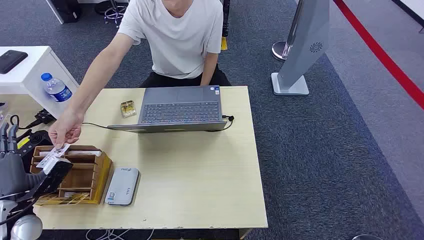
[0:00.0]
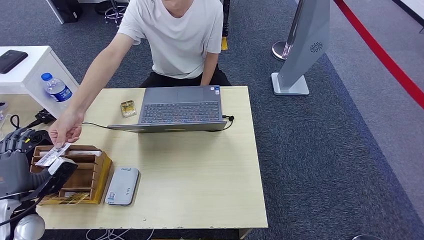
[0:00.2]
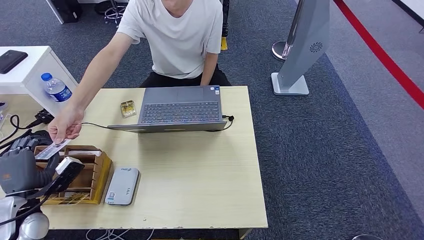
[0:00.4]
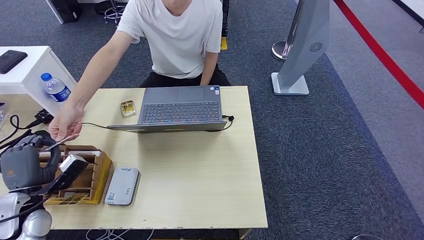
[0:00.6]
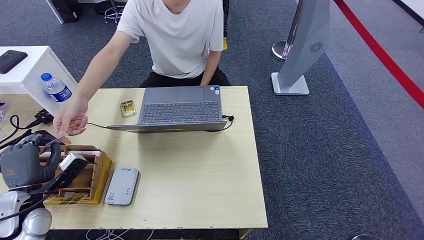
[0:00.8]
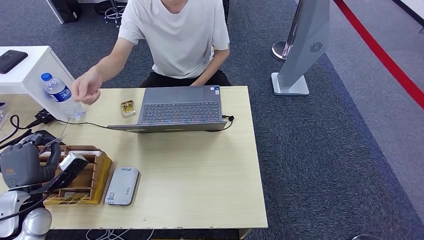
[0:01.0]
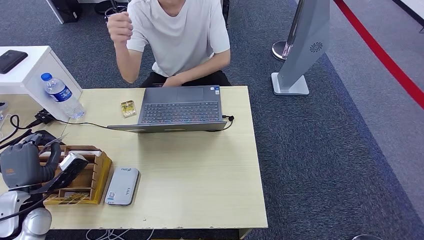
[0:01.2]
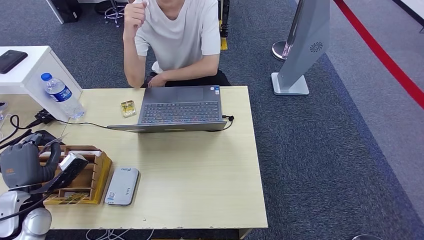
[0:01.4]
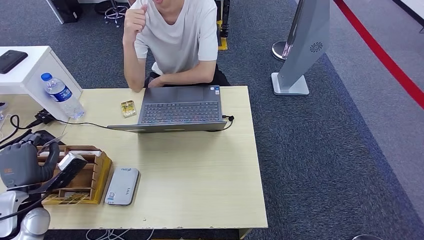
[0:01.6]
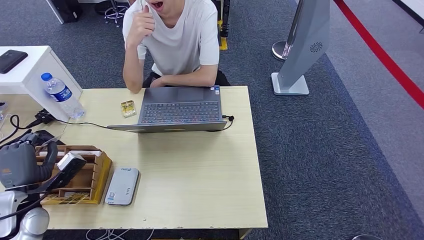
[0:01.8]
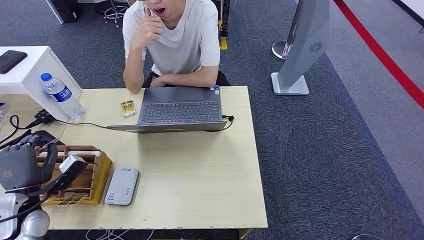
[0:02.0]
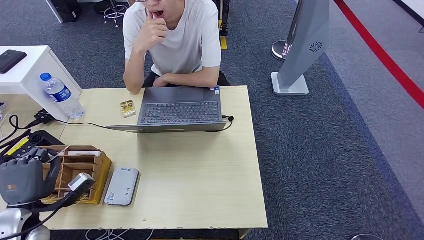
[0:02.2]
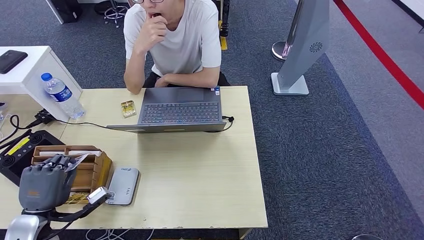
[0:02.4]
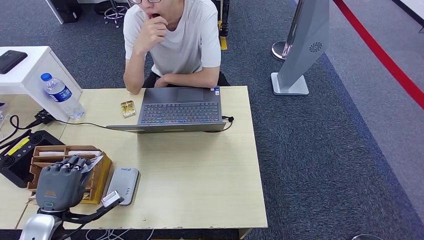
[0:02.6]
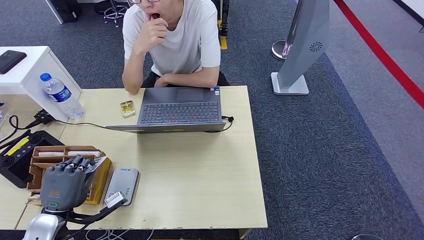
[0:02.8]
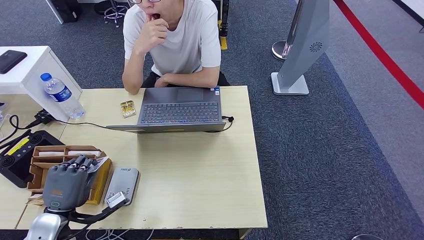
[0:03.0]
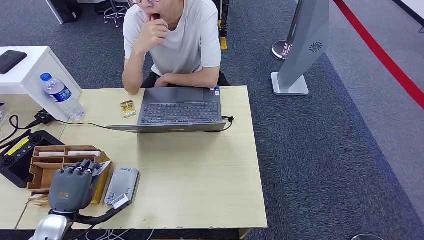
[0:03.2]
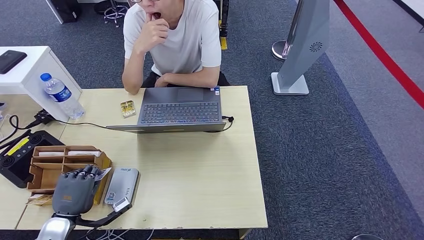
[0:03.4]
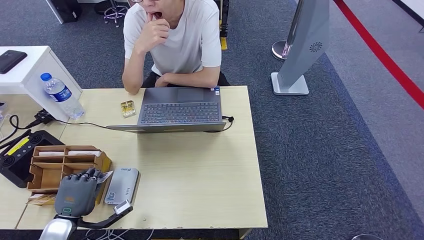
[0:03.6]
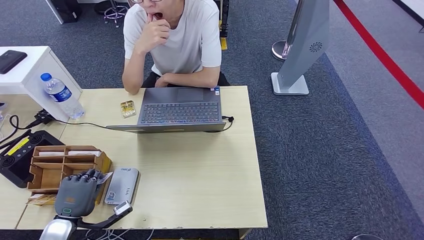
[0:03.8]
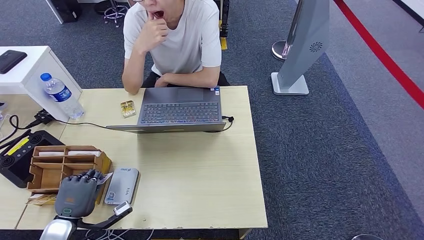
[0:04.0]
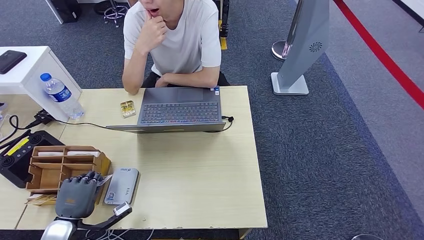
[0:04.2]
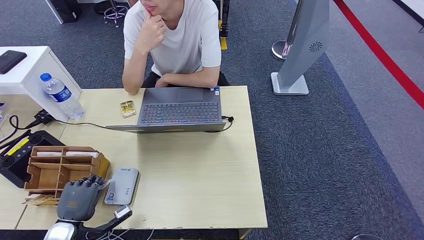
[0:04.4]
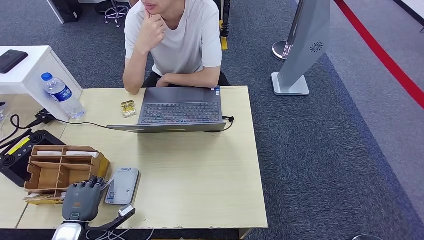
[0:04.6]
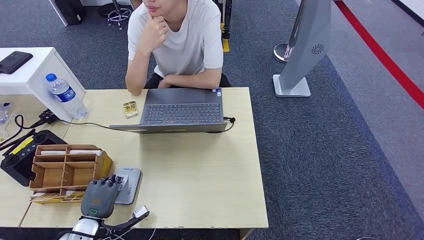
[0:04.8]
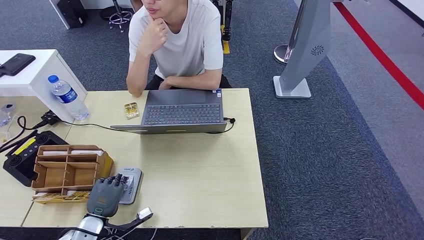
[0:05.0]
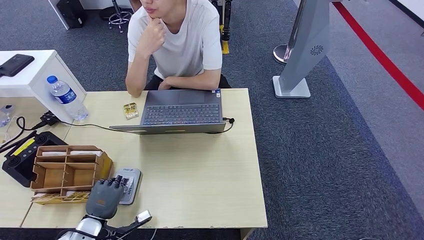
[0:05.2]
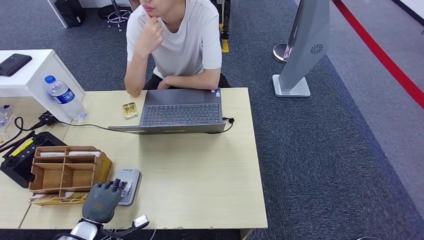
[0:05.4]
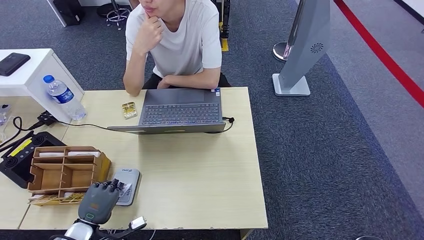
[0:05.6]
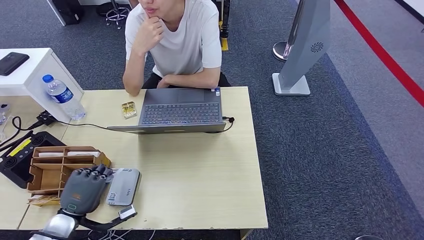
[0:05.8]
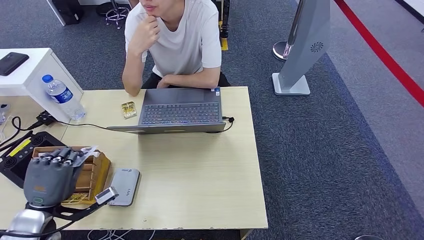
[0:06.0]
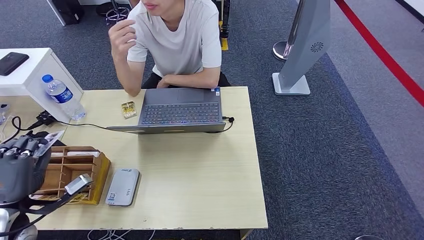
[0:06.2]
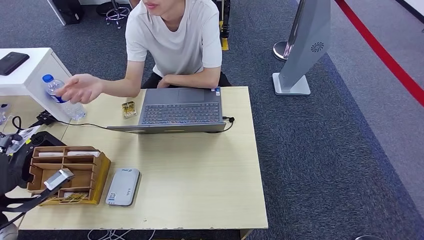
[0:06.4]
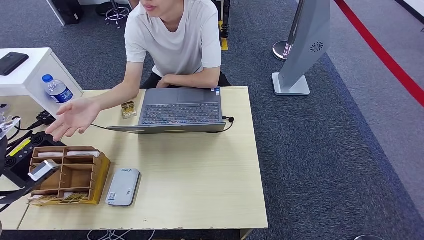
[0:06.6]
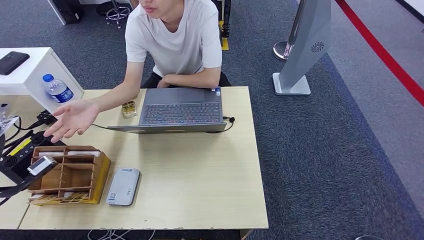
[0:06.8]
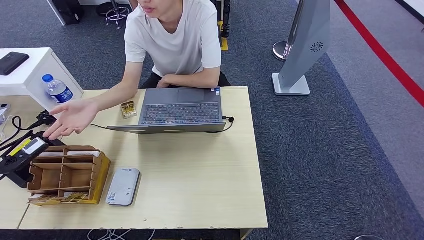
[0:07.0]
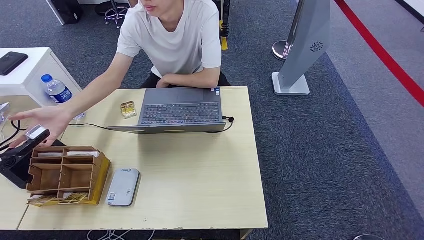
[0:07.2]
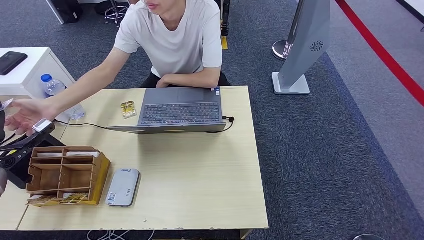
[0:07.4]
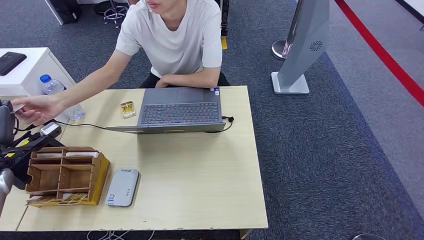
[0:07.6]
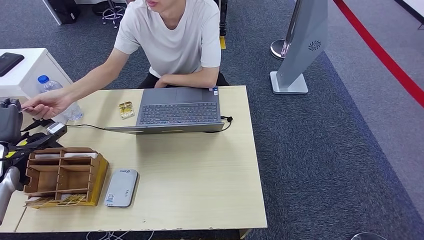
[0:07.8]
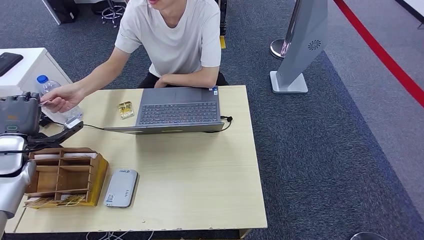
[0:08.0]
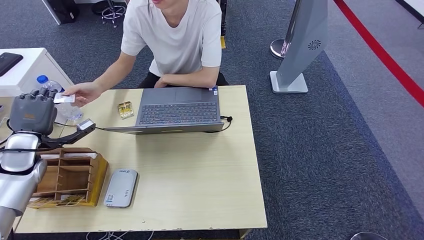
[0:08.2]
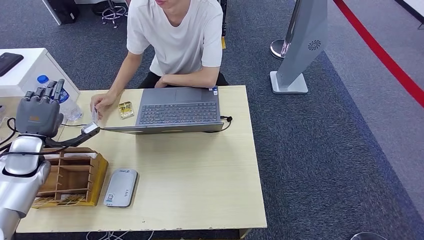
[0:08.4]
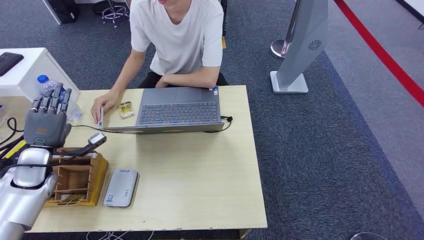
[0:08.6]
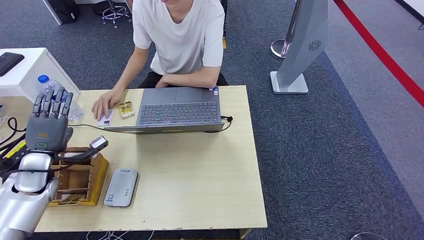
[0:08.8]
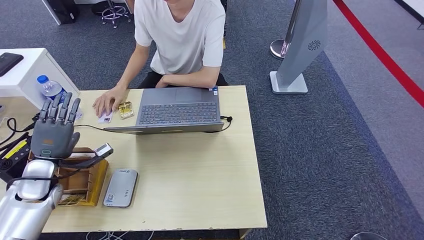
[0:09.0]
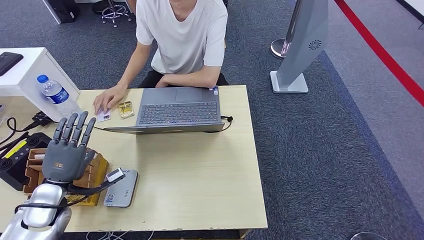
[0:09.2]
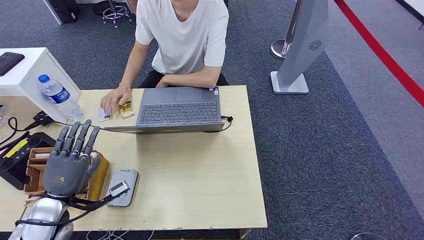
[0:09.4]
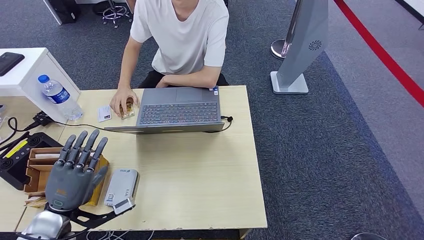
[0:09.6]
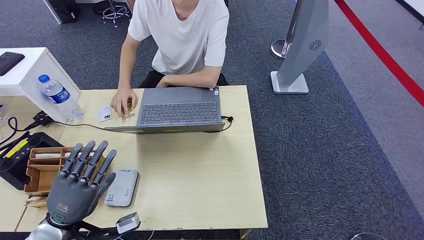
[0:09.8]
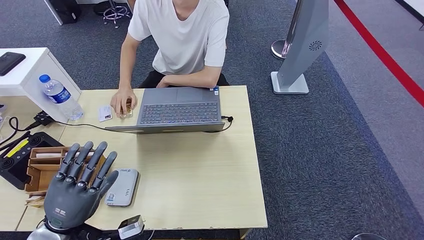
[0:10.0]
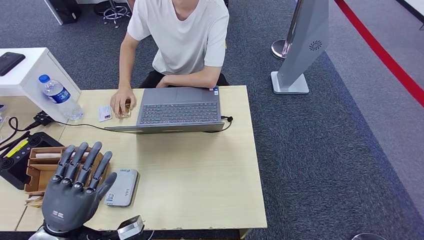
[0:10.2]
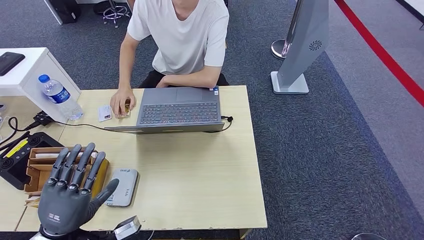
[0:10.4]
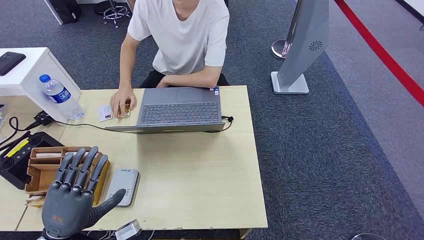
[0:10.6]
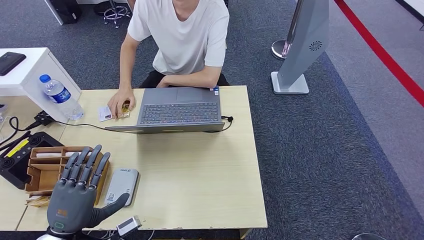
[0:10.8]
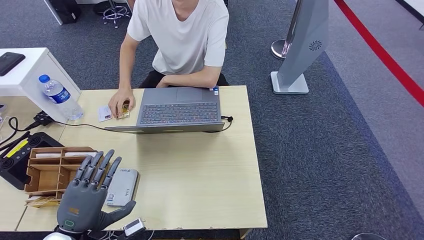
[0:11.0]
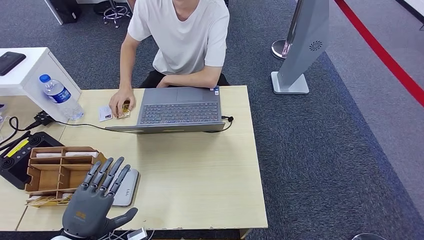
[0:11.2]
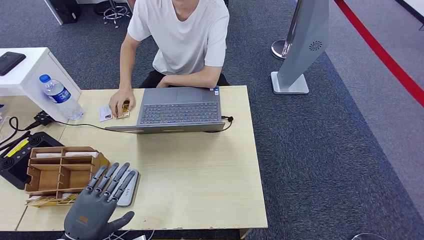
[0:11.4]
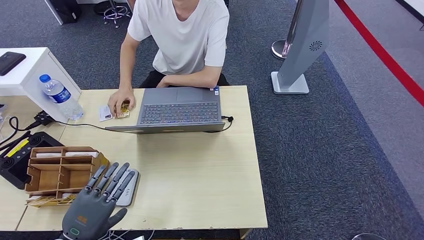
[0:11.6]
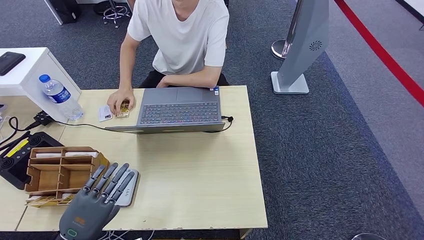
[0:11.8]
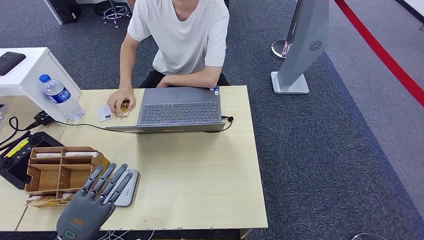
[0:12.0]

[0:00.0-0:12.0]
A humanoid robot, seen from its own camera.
Step, 0.0 to 1.0 s: Take the ID card from the person's hand.
Step, 1.2 to 6.2 s: Place the ID card on the card reader.
Step, 6.4 to 9.8 s: Hand the ID card to the person.
1.6 to 3.0 s: The left hand heads to the right, covering approximately 5 cm.
3.0 to 4.4 s: The left hand goes roughly 5 cm downward.
4.4 to 6.0 s: The left hand travels upward by approximately 10 cm.
6.0 to 7.6 s: The left hand travels to the left, forward and upward by approximately 20 cm.
7.6 to 9.0 s: The left hand heads to the right and downward, covering approximately 10 cm.
9.0 to 10.4 s: The left hand shifts approximately 20 cm backward and to the right.

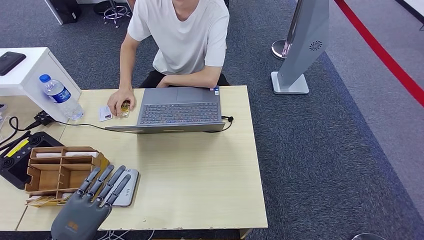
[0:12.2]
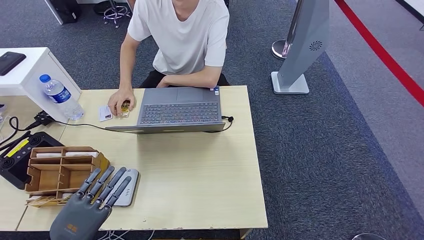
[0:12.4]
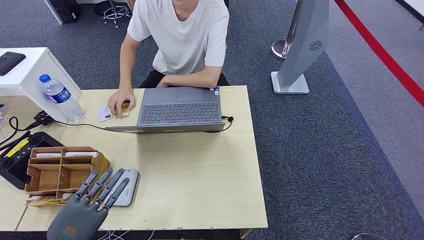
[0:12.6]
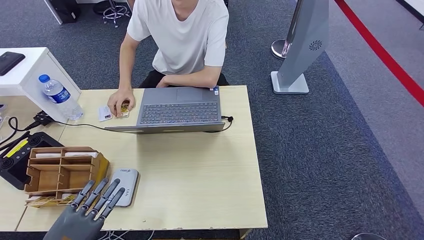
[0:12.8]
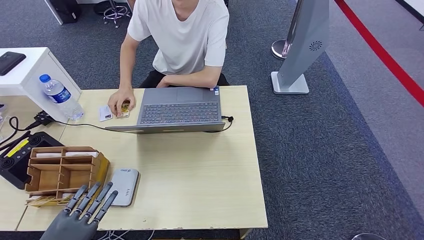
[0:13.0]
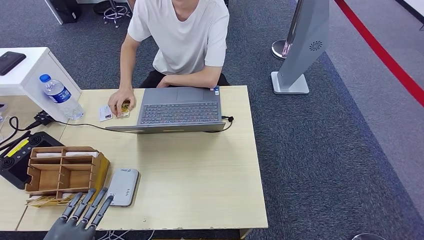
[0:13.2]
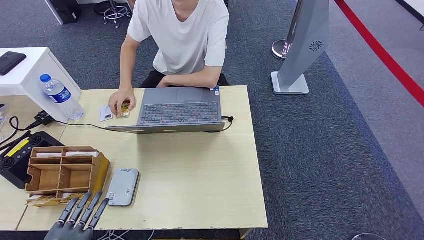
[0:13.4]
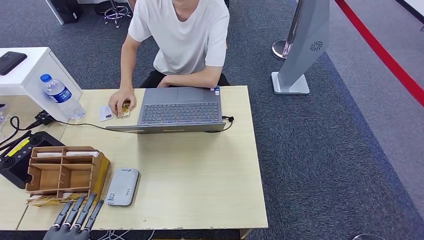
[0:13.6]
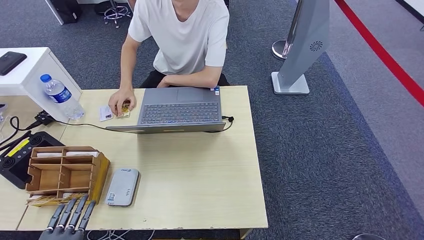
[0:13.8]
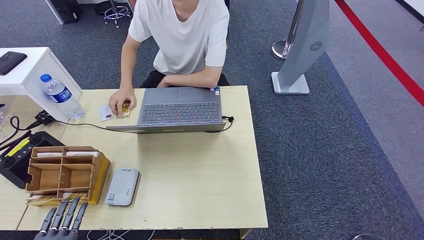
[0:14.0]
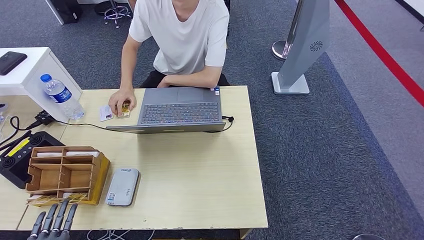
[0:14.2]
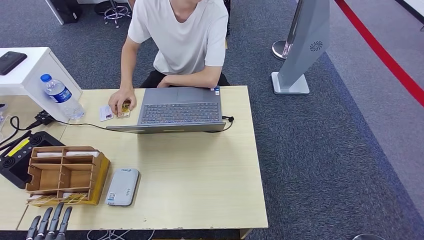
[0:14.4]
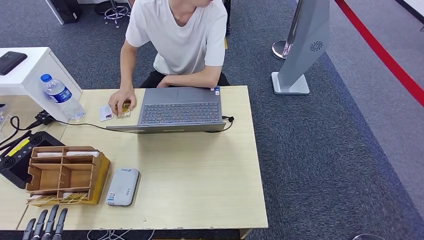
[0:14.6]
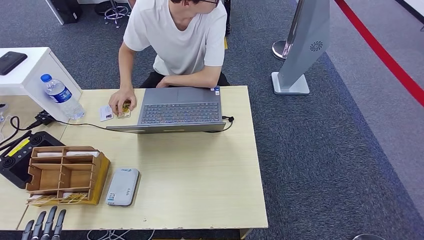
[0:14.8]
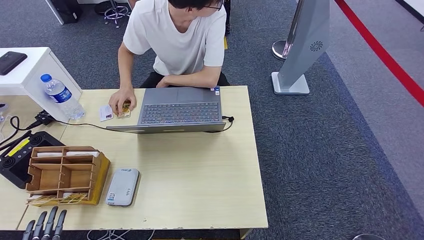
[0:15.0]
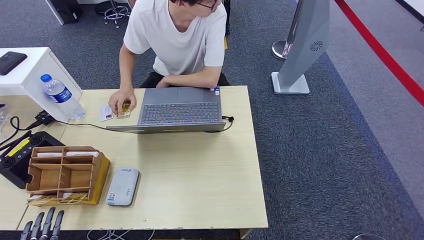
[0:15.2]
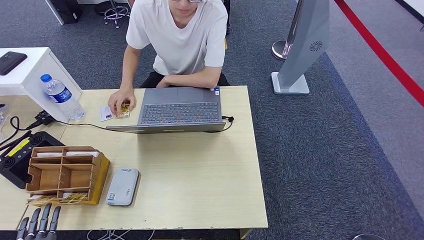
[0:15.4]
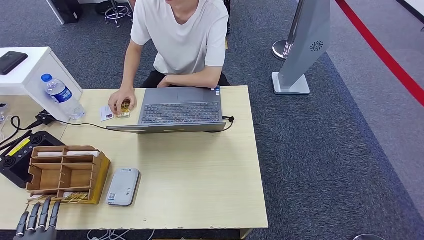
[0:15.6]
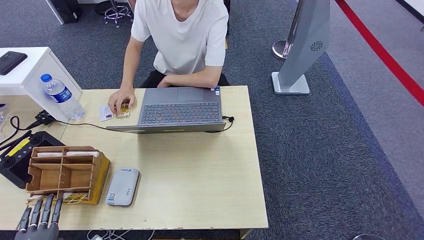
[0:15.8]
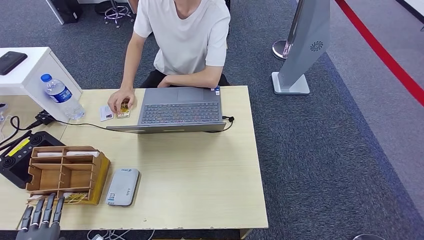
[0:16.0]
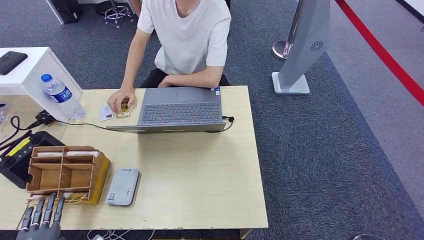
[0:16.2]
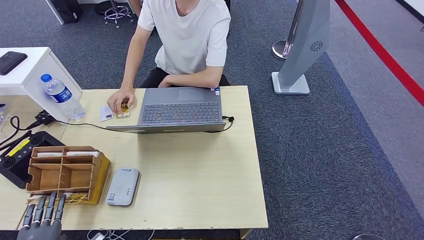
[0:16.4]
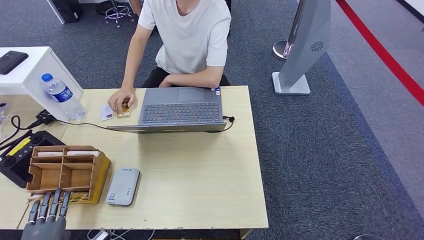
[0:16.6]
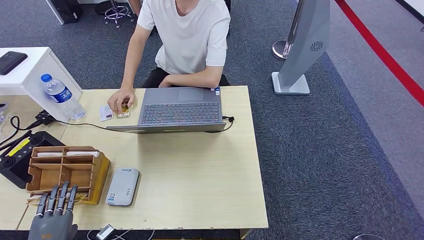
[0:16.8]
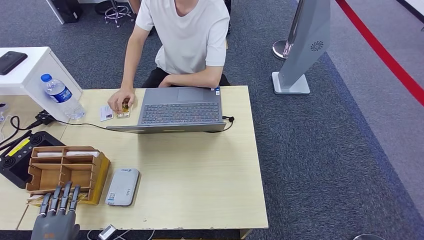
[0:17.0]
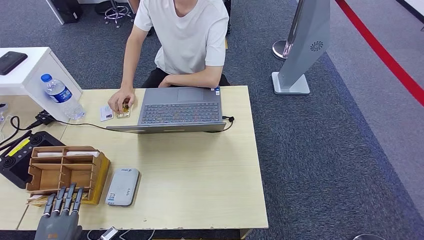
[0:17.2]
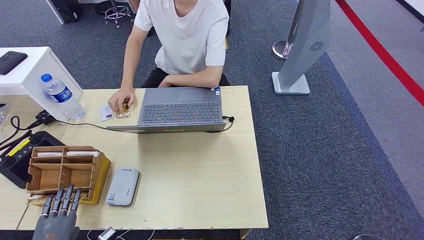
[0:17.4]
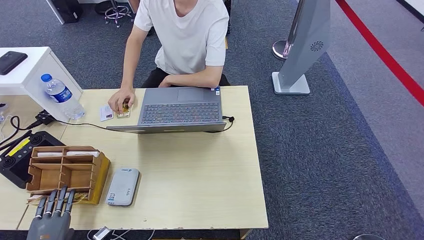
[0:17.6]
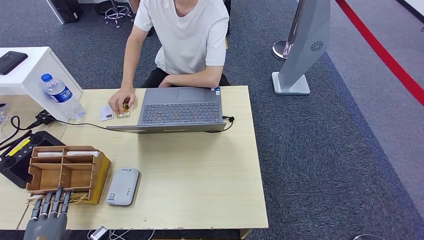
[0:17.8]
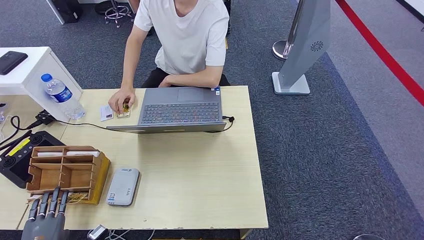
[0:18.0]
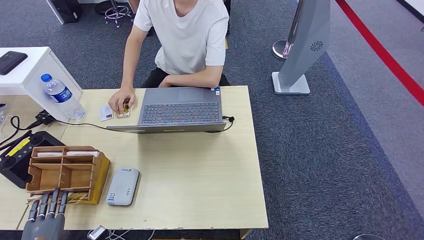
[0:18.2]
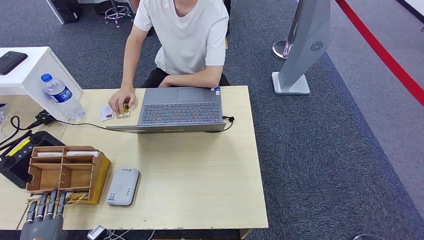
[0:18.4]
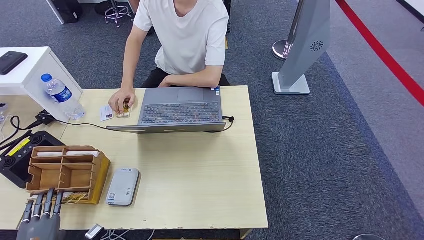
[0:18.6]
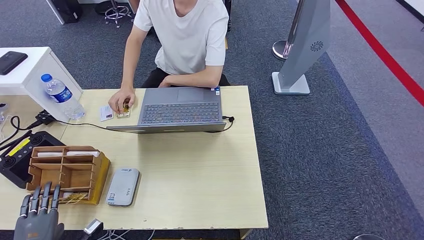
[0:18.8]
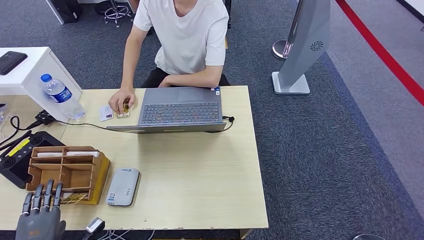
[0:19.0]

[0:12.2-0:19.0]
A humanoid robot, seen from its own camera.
12.2 to 13.6 s: The left hand is displaced backward by approximately 5 cm.
13.6 to 15.0 s: The left hand goes some 10 cm downward and to the left.
15.0 to 17.6 s: The hands make only small movements.
17.6 to 19.0 s: The hands stay close to where they were, moving slightly.
